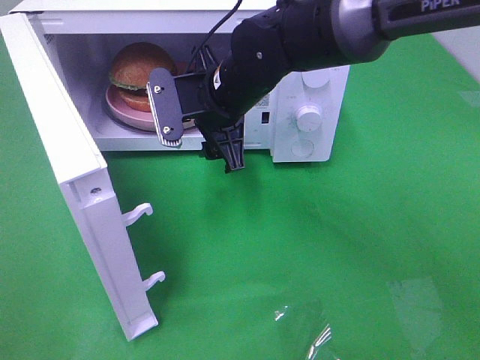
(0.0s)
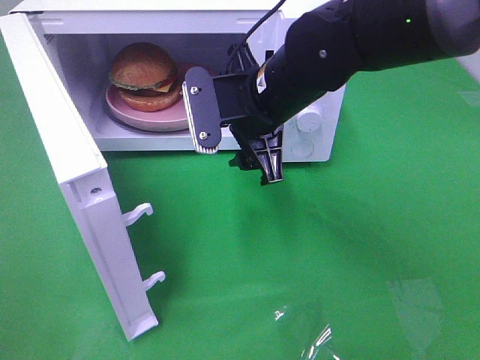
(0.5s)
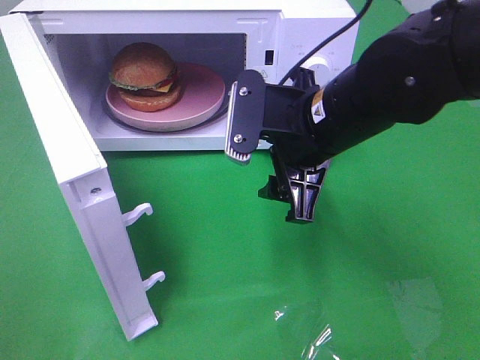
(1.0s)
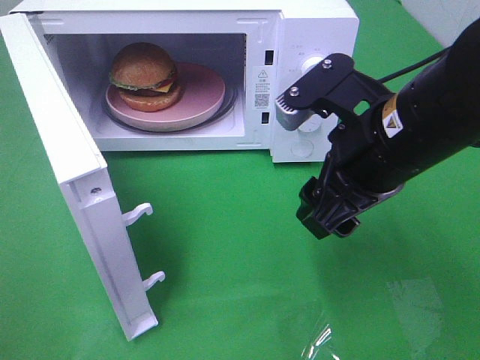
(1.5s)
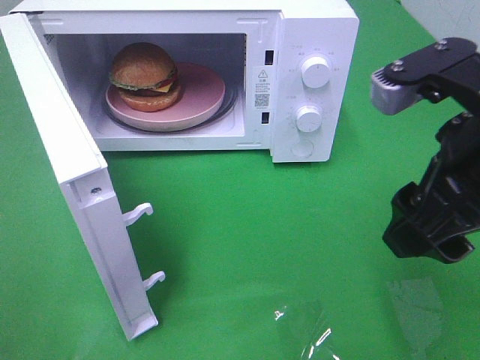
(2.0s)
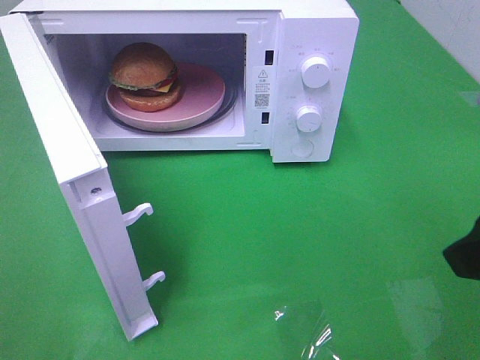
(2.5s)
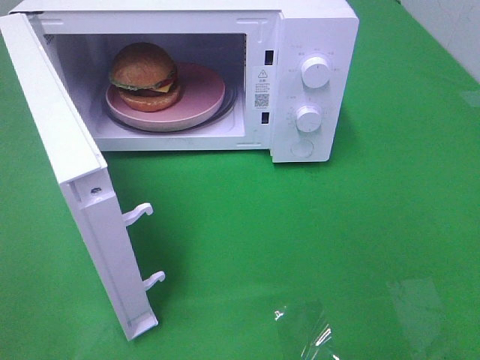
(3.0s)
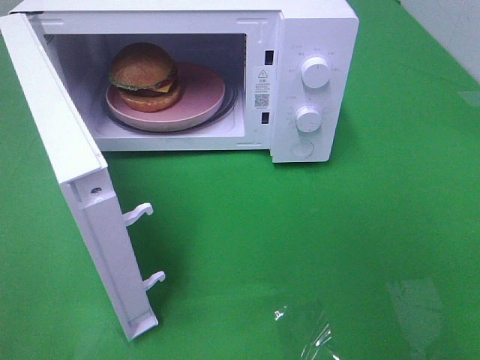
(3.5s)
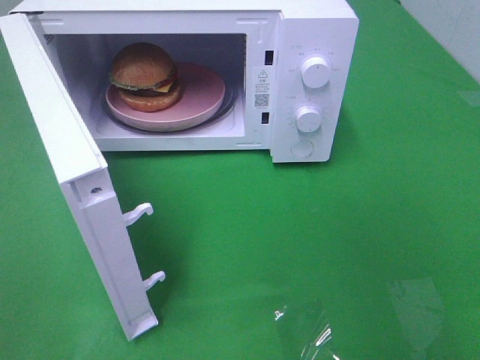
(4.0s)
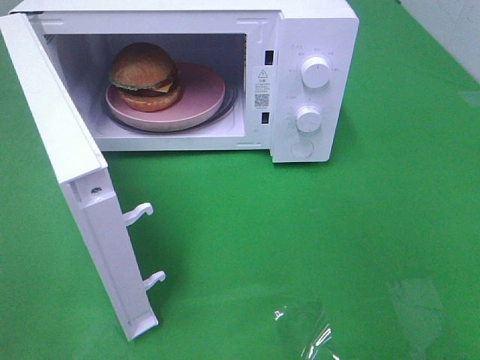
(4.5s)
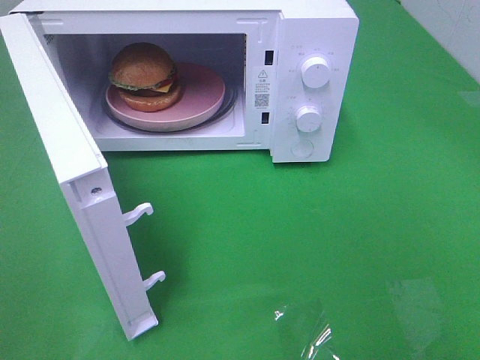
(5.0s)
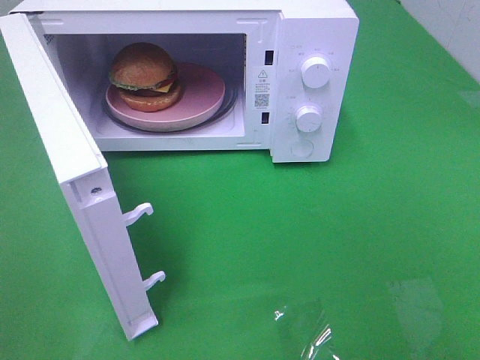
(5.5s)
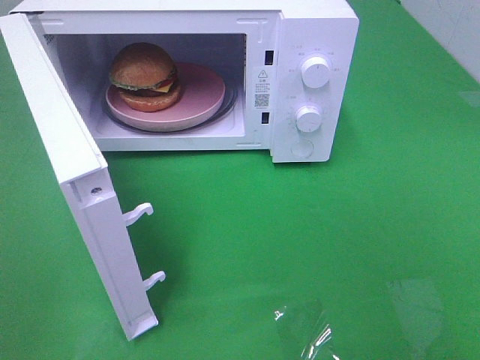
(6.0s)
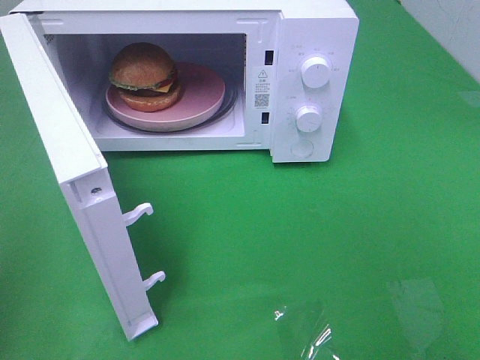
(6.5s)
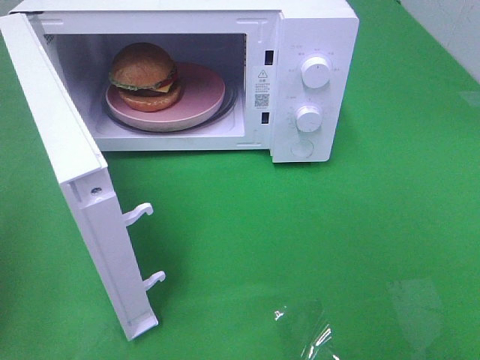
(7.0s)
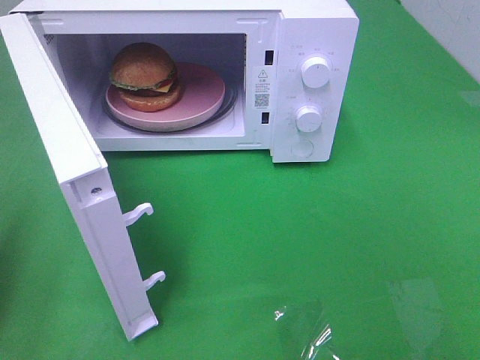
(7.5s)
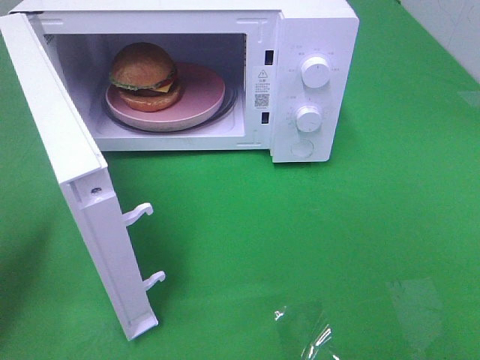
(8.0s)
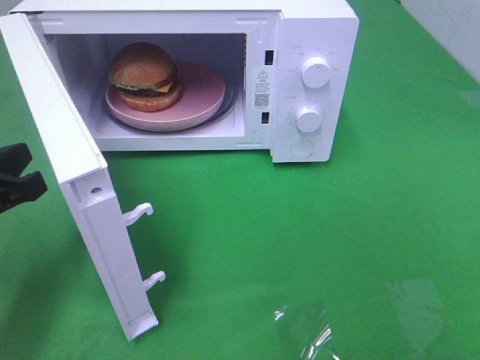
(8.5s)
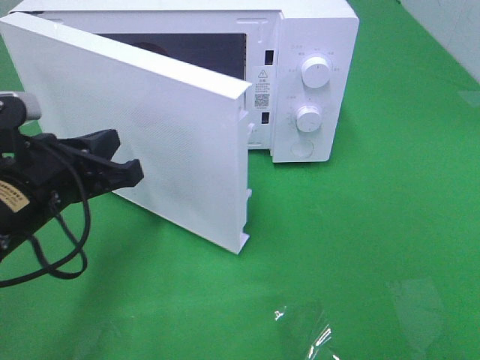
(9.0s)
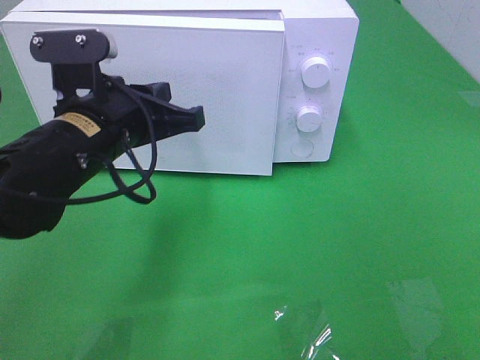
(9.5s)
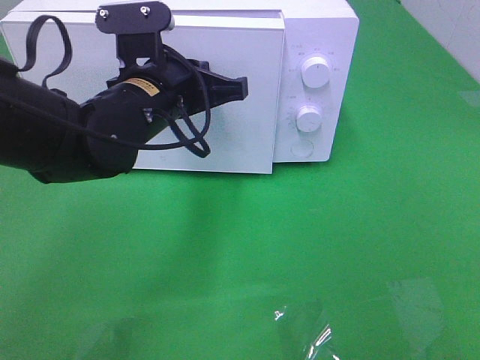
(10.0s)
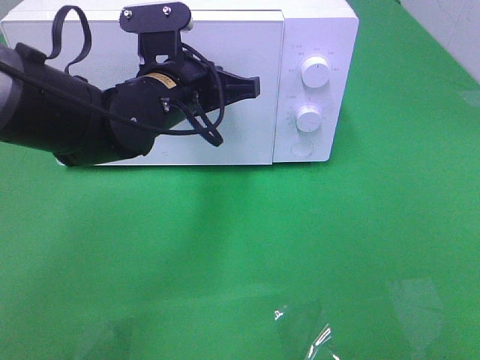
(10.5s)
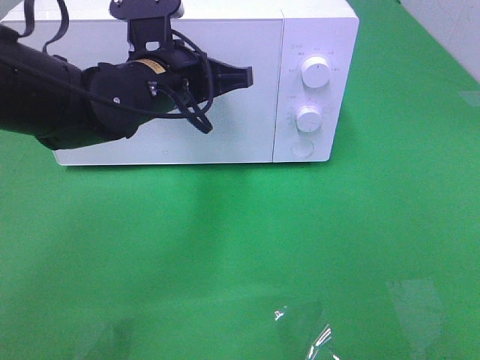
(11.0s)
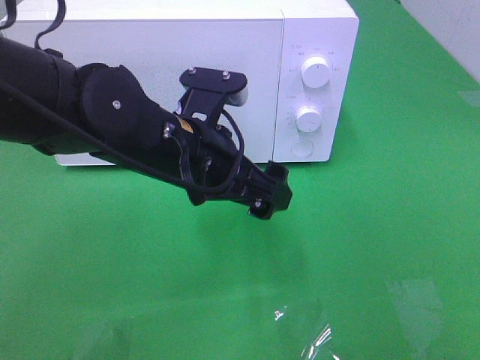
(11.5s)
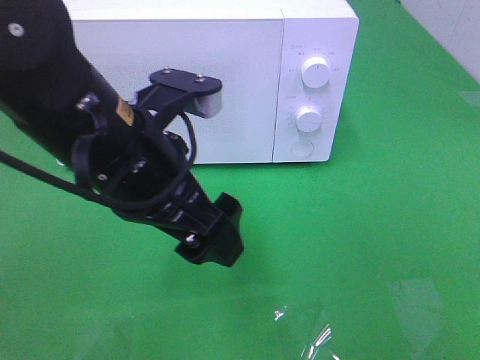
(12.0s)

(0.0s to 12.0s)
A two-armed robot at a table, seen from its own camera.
Task of the whole recording: Heat the burger.
Step, 0.5s - 11.0s: Left hand: close the microwave door.
0.0s - 2.0s: The right gripper heads backward, to the right and upward, covering some 30 cm.
2.0s - 4.0s: The right gripper is displaced backward and to the right by approximately 20 cm.
6.0s - 8.0s: The left gripper is displaced forward and downward by roughly 25 cm, and closes its fingers.
8.0s - 10.0s: The left gripper heads to the right and forward, covering approximately 25 cm.
10.0s - 12.0s: The left gripper heads backward, covering some 10 cm, and opens.

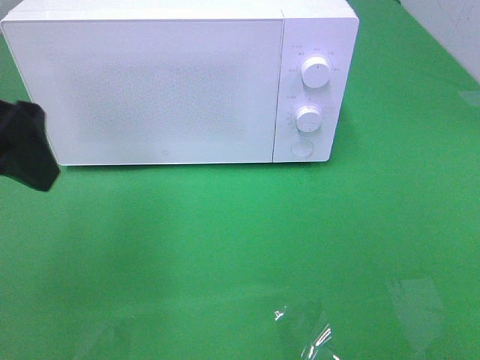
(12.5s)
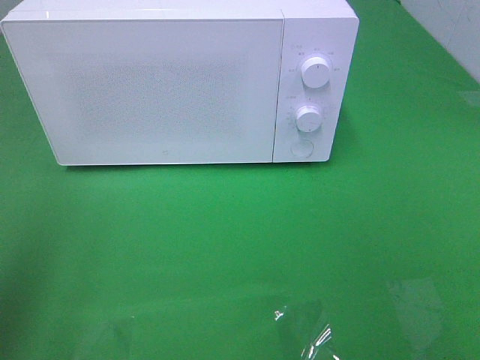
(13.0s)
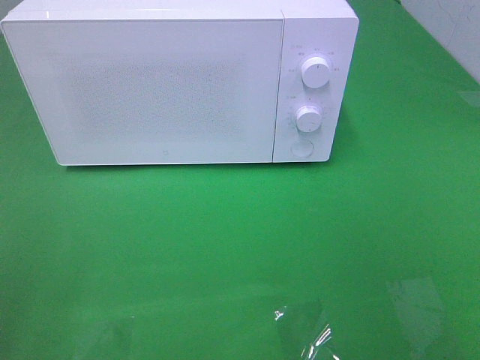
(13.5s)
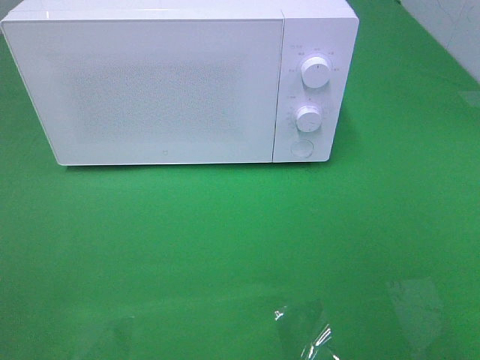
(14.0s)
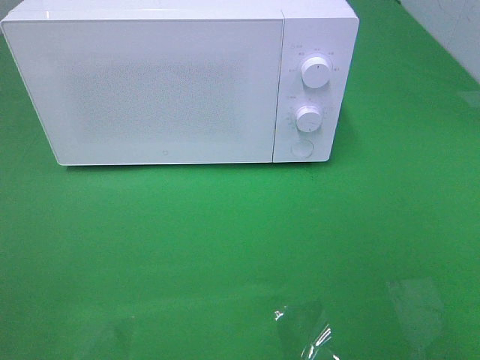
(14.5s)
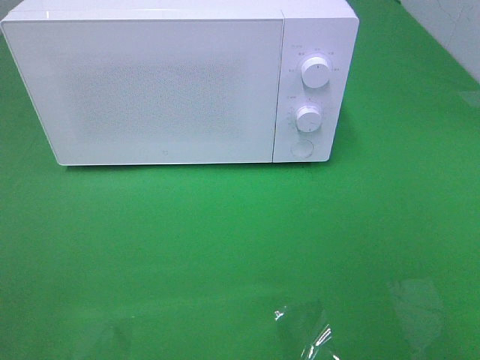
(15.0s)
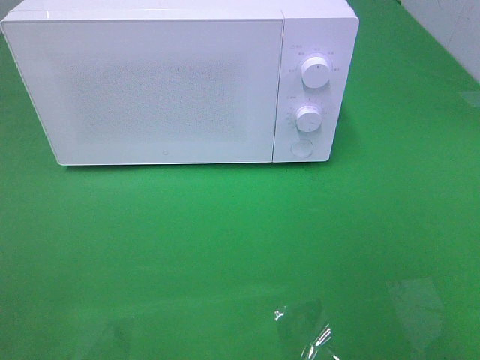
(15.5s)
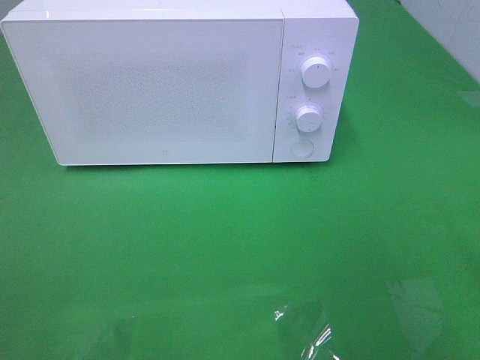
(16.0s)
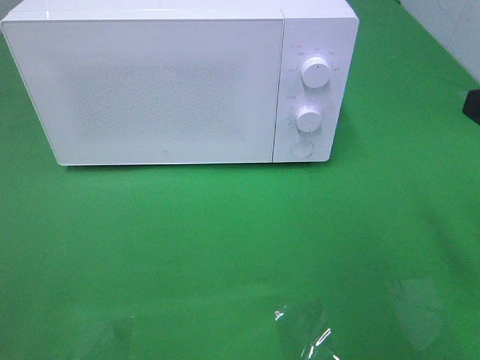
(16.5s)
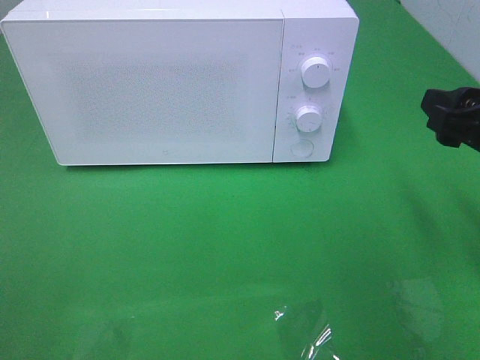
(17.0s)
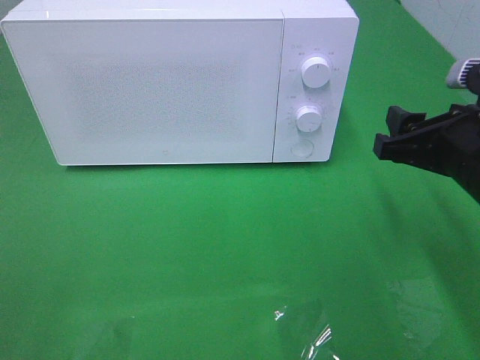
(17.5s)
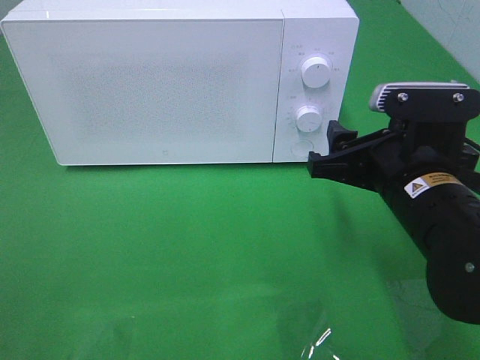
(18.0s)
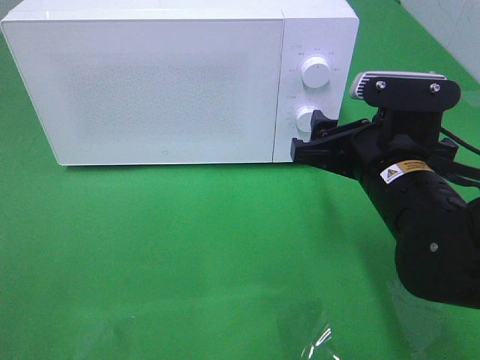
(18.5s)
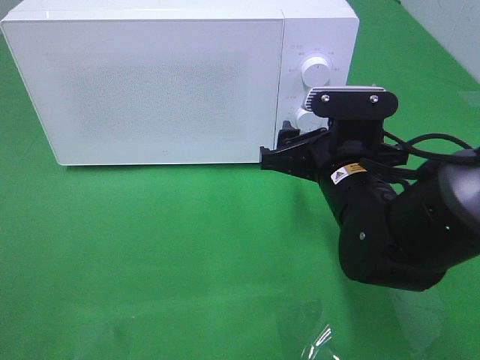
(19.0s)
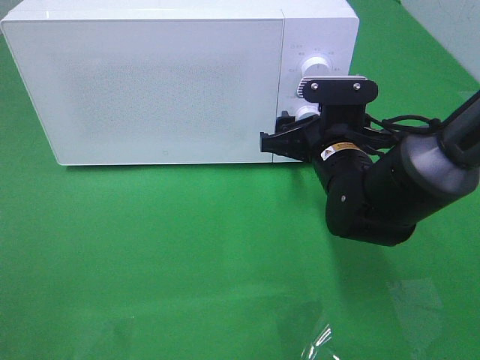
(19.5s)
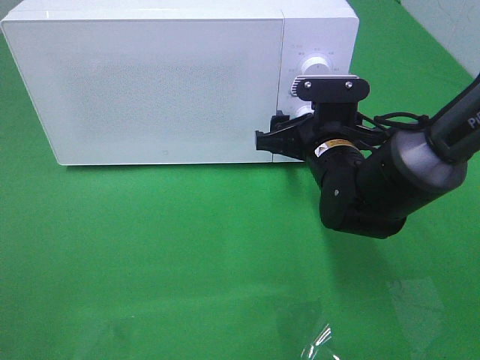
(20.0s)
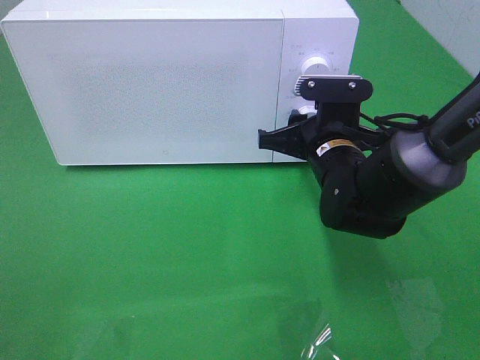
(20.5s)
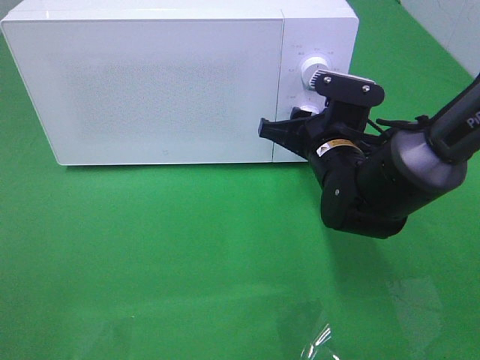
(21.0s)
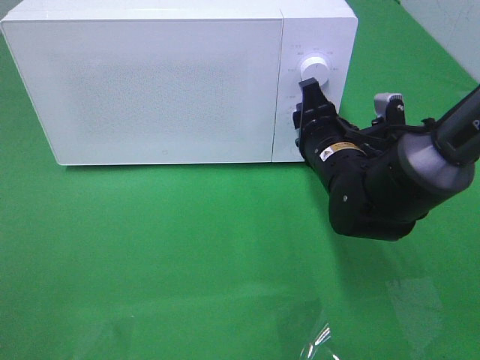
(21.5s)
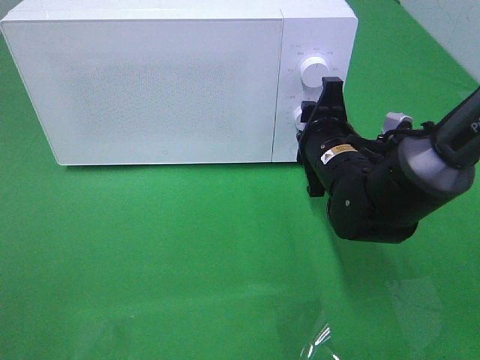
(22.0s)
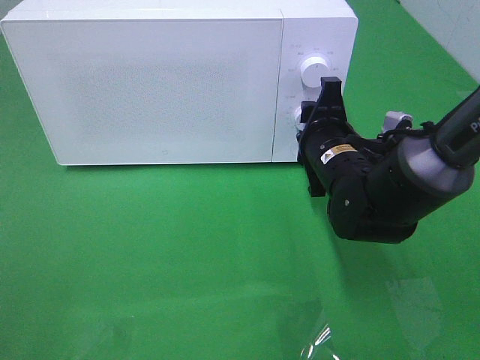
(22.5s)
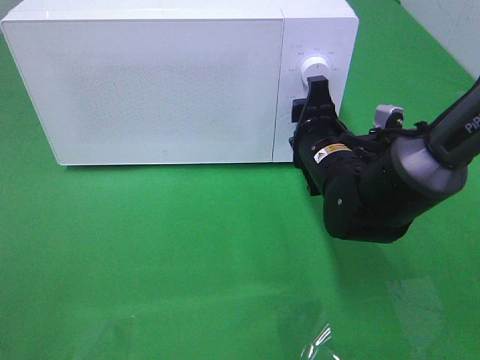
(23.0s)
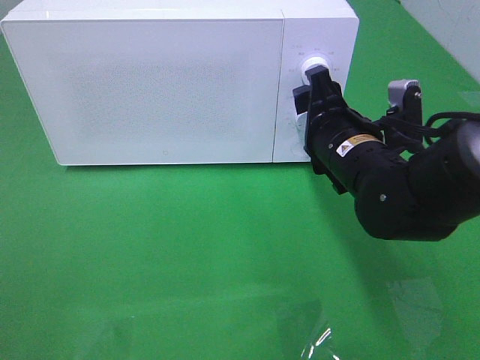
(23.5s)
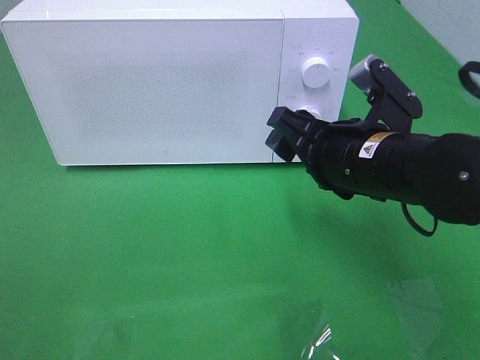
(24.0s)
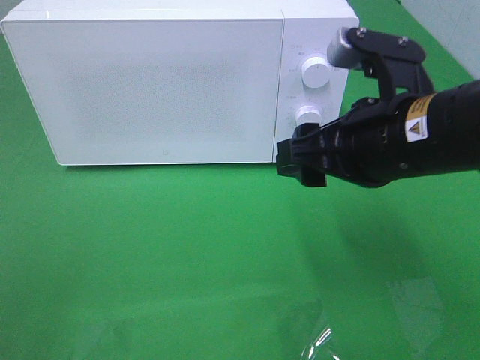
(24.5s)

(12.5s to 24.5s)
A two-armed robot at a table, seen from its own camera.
Task of the whole recording: Heat the burger.
Step, 12.5s - 23.0s: Right hand: twist timer button.
12.5s - 14.5s: The left gripper goes approximately 25 cm backward and to the left.
16.5s - 18.5s: The right gripper is displaced to the left, downward and forward by roughly 15 cm.
18.5s - 20.5s: The right gripper is displaced forward and downward by roughly 10 cm, and closes.
22.5s - 24.5s: The right gripper heads upward and backward, covering approximately 15 cm.

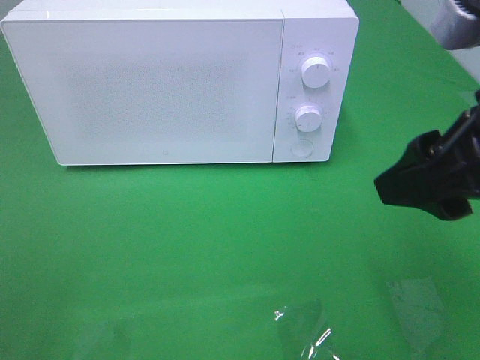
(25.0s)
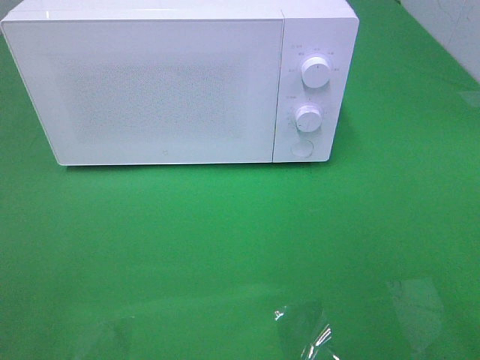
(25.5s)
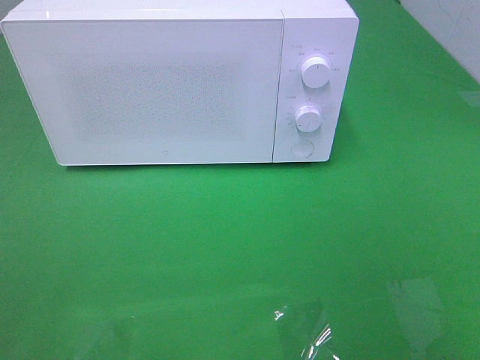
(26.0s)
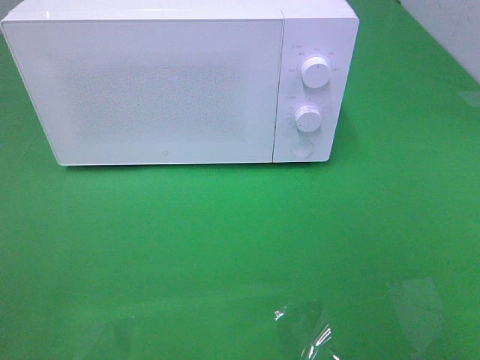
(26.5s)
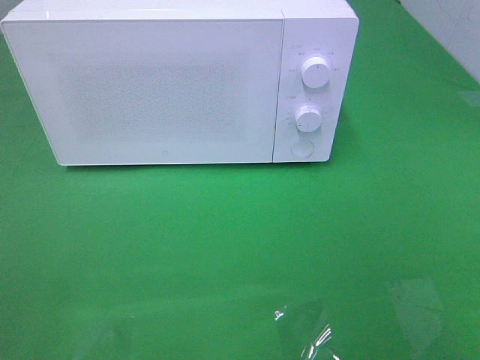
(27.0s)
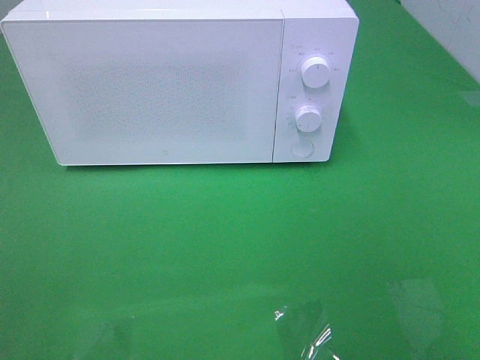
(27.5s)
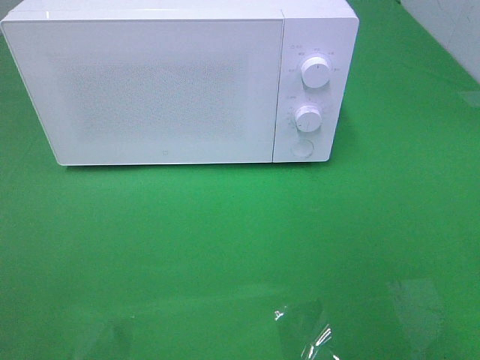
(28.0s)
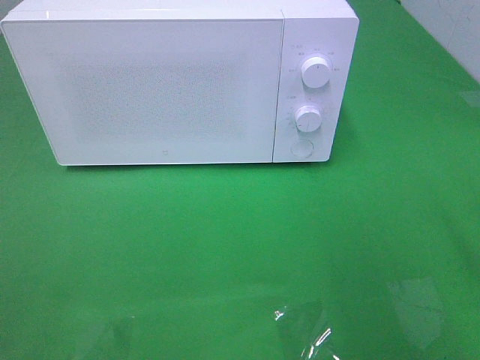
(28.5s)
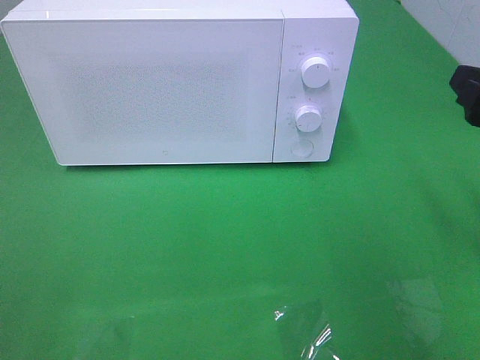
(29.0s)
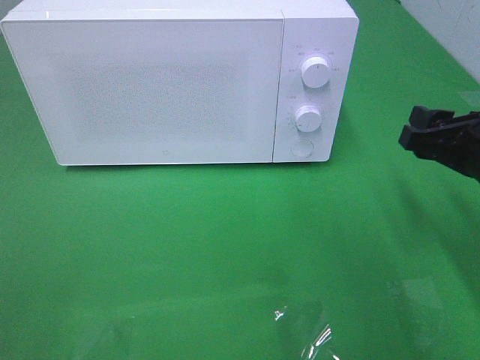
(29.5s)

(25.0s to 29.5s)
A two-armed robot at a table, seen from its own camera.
Task of the whole recording: Heat the burger.
25.0s - 27.0s: The right gripper shifts approximately 20 cm backward and to the right.
27.0s - 29.5s: The right gripper moves forward and downward, about 25 cm.
